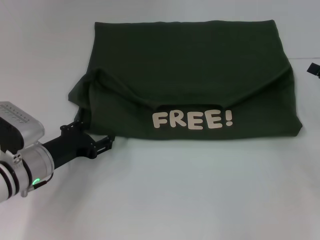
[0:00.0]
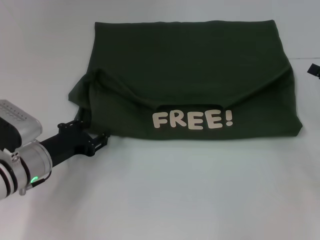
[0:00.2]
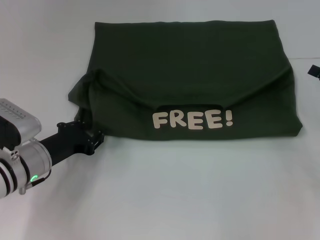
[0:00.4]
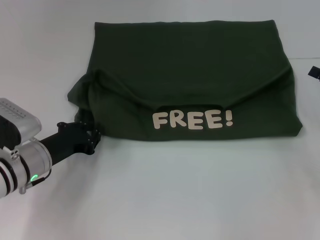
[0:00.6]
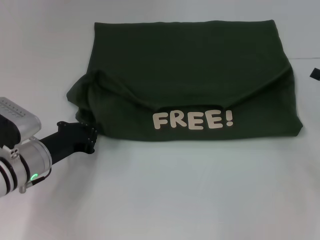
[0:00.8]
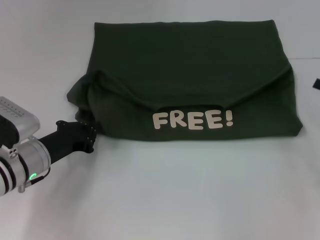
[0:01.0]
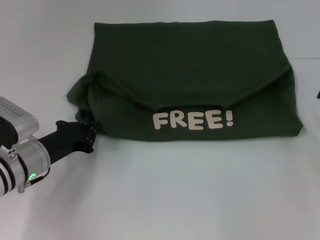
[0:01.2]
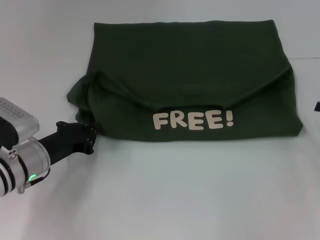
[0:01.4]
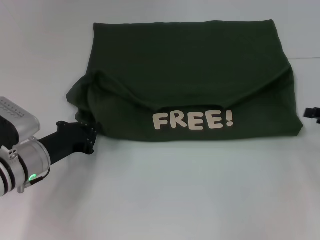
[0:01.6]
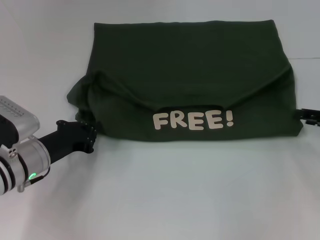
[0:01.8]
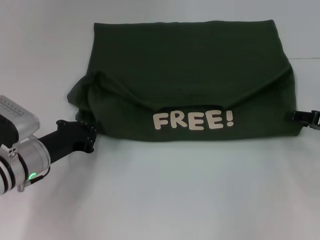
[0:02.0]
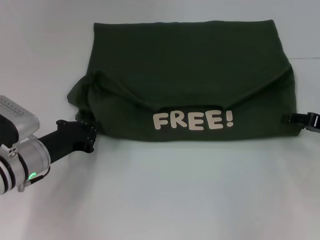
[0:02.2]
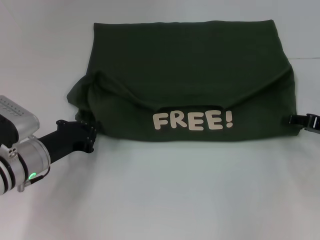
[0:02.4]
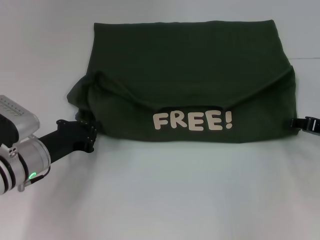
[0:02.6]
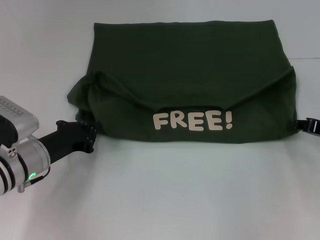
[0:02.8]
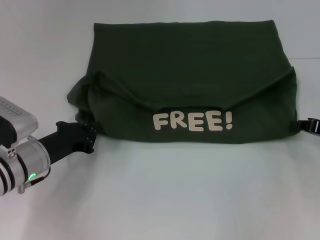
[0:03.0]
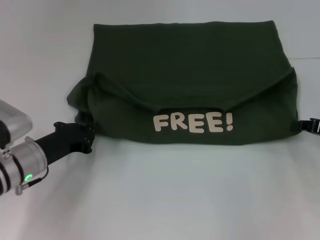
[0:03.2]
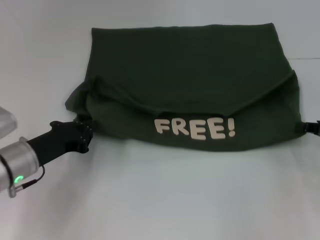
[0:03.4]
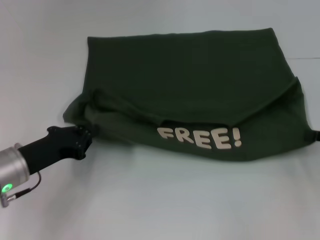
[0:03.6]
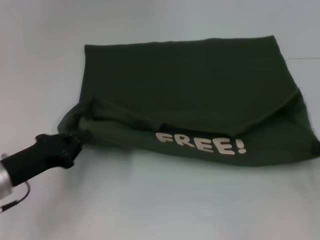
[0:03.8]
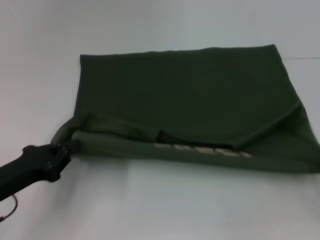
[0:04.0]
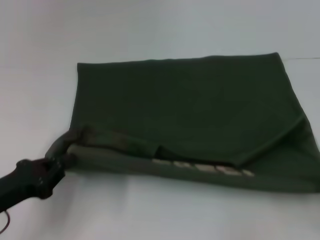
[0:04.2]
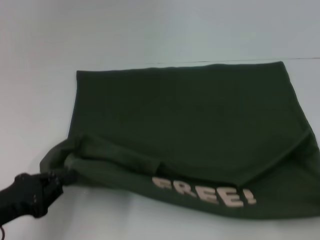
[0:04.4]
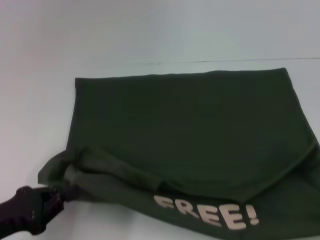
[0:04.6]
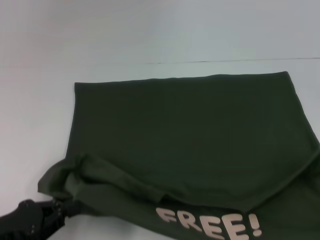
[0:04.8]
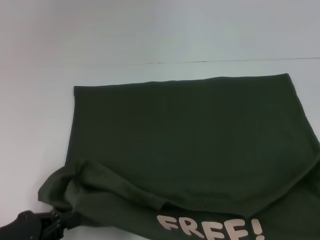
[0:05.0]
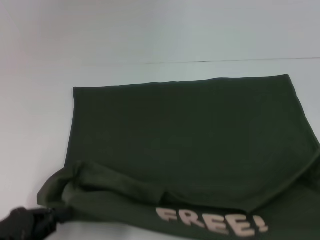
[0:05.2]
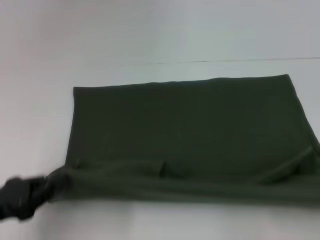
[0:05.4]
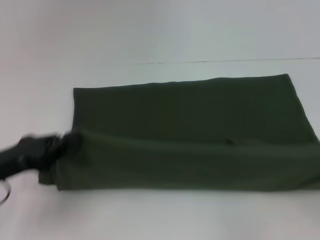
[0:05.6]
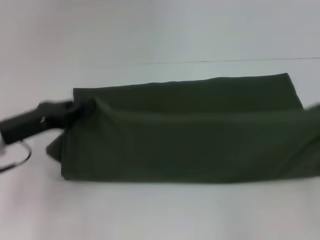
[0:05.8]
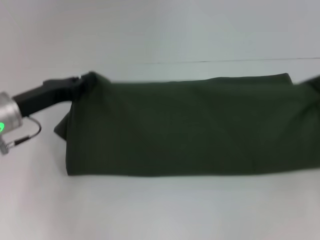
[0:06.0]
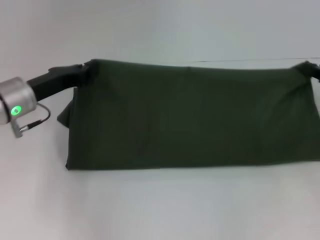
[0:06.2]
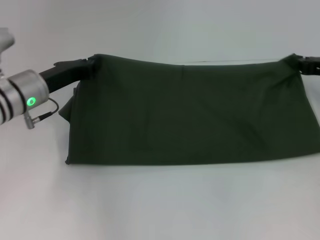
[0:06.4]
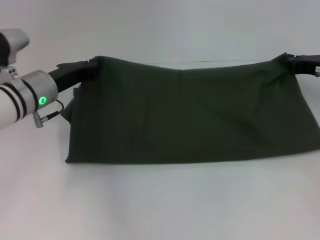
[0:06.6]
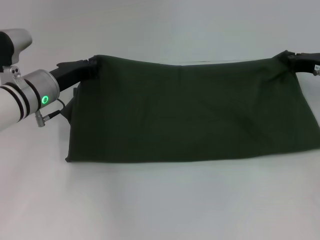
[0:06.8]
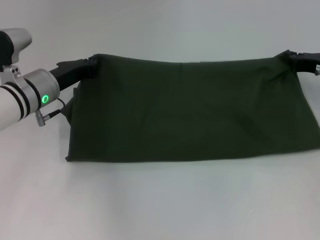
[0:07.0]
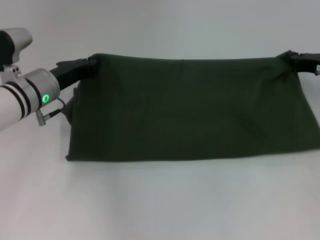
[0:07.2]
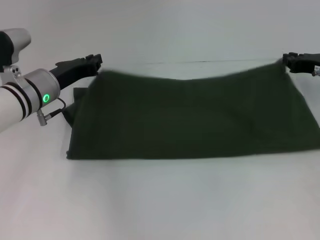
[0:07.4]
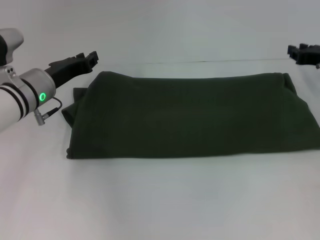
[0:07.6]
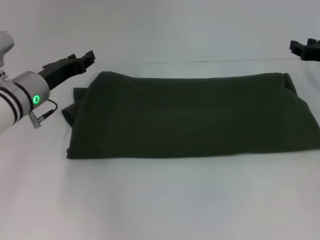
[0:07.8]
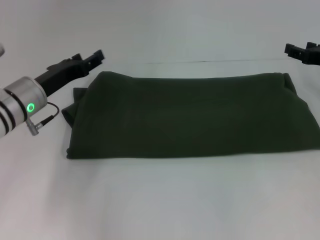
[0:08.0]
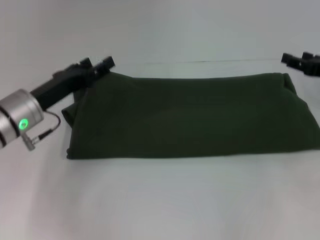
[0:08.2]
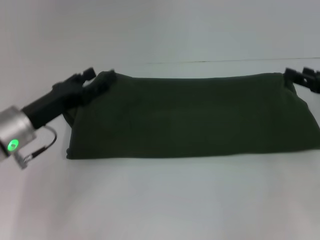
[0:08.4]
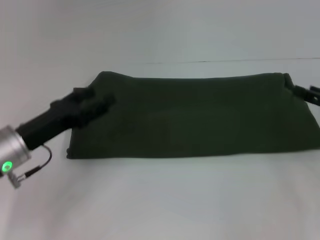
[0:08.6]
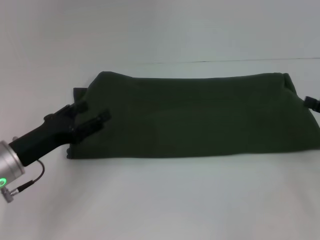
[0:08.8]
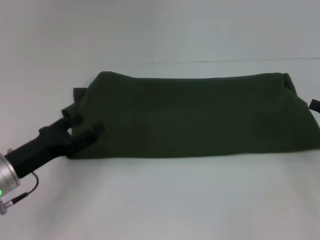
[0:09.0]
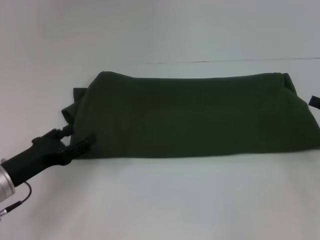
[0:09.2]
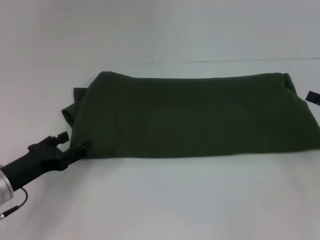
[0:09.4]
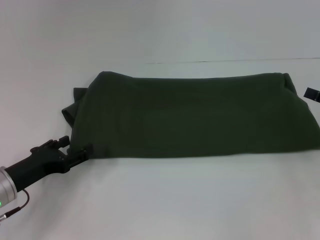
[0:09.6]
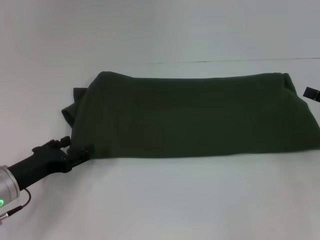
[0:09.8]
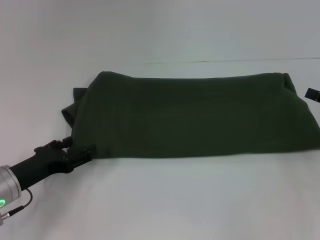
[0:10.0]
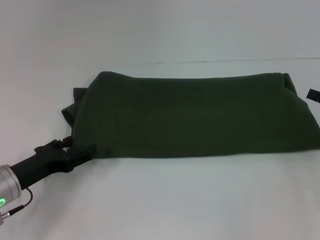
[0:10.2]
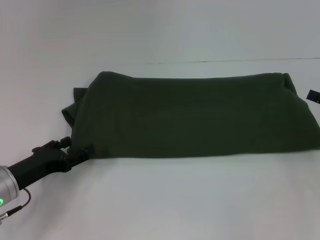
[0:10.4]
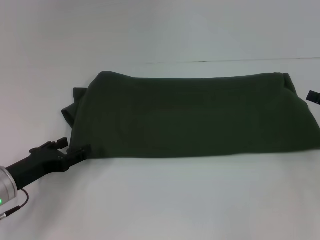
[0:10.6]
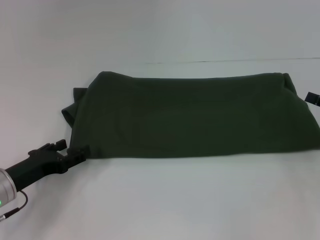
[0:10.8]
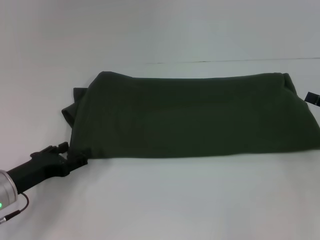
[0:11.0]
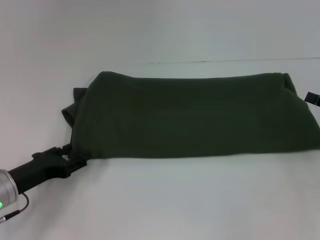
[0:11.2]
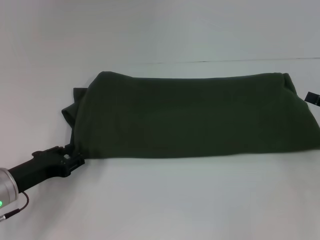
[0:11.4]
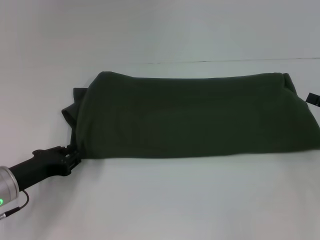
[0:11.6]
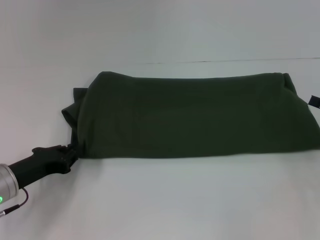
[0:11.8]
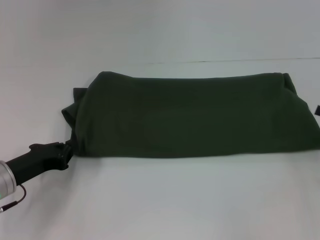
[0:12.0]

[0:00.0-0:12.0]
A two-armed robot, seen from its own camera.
Step, 0:00.0 to 0:04.8: Pull the clothes with your left hand.
Step, 0:00.0 to 0:04.8: Pull the clothes with your right hand.
Step, 0:05.0 to 0:07.4: Fold the clothes with your right hand.
0:00.0 to 0:01.6: The left gripper closes its fingers.
0:01.6 to 0:03.0: There are only small adjustments of the grippers.
0:03.0 to 0:04.4: The left gripper travels backward and to the left by approximately 15 cm; the right gripper goes some 15 cm backward.
0:04.4 to 0:06.0: Both grippers move forward, some 15 cm.
0:06.0 to 0:07.6: The right gripper goes about 10 cm forward and to the left. The left gripper shifts some 5 cm forward.
0:07.6 to 0:09.0: The left gripper moves backward, some 15 cm, and opens its fingers; the right gripper moves backward and to the right, about 15 cm, and opens.
0:09.0 to 0:10.4: The grippers move only a little.
0:10.4 to 0:12.0: The left gripper closes up.

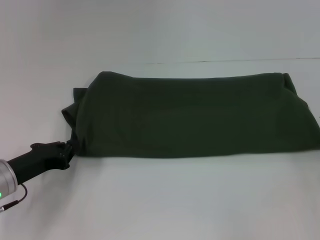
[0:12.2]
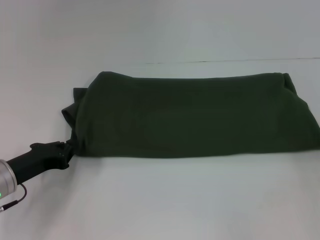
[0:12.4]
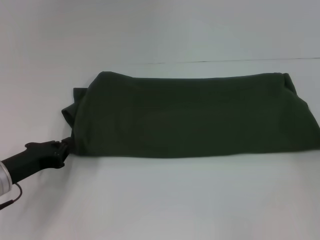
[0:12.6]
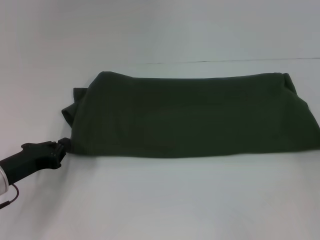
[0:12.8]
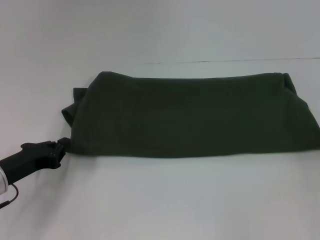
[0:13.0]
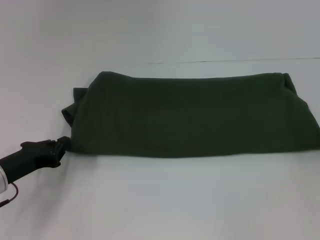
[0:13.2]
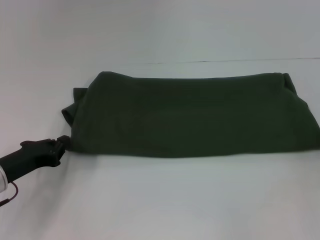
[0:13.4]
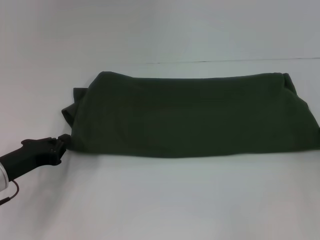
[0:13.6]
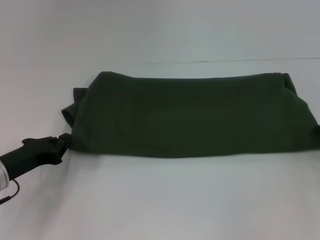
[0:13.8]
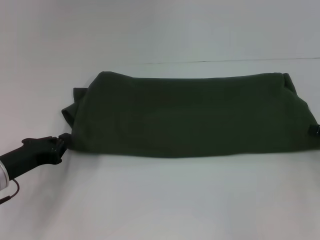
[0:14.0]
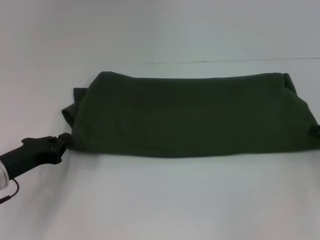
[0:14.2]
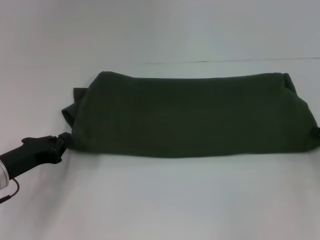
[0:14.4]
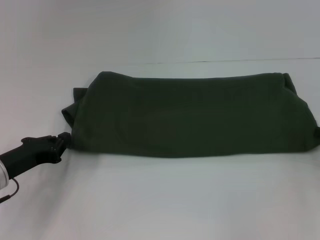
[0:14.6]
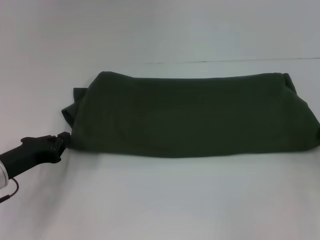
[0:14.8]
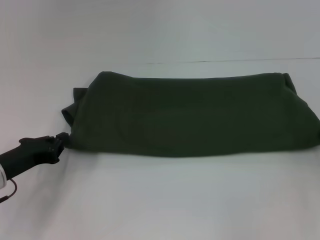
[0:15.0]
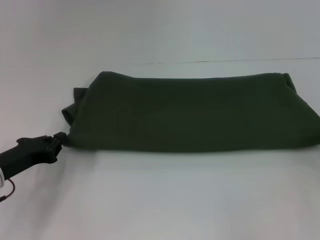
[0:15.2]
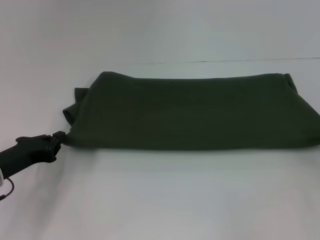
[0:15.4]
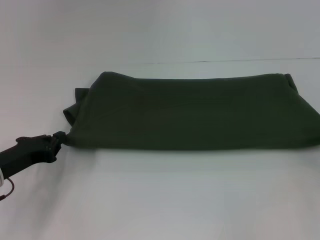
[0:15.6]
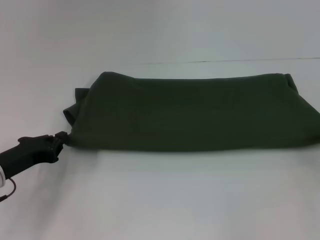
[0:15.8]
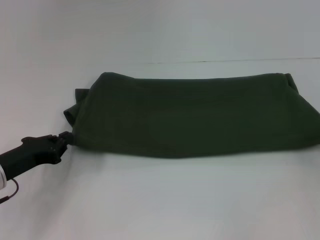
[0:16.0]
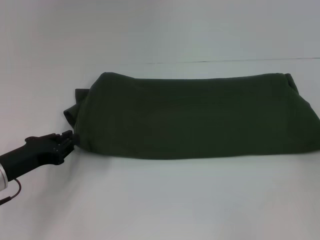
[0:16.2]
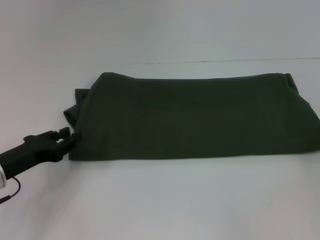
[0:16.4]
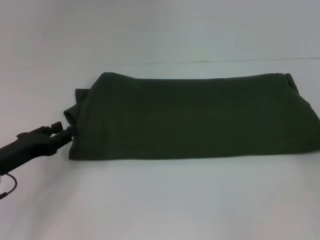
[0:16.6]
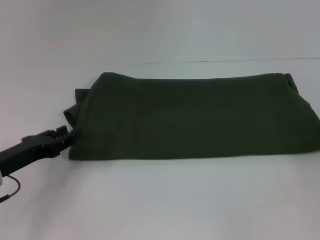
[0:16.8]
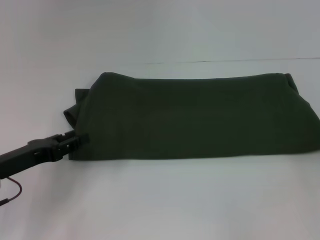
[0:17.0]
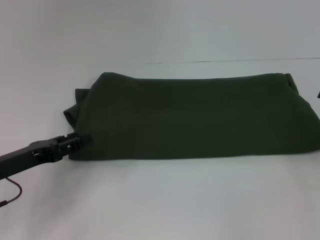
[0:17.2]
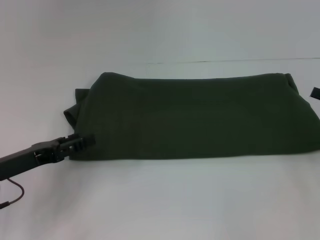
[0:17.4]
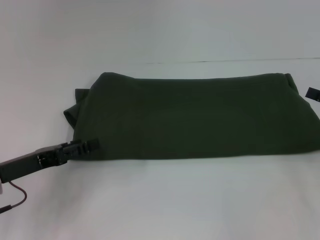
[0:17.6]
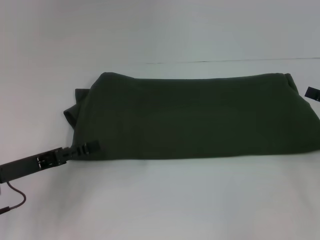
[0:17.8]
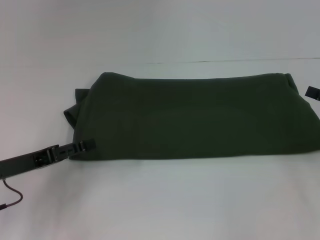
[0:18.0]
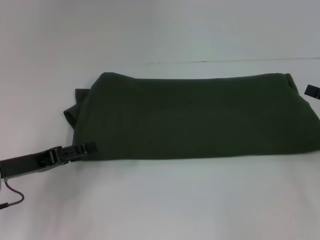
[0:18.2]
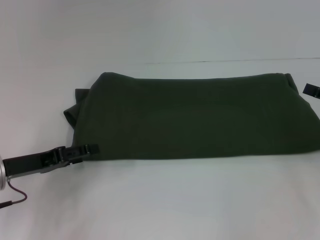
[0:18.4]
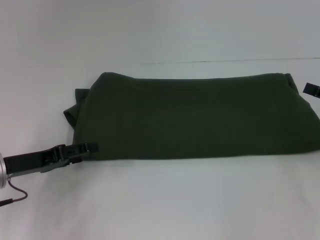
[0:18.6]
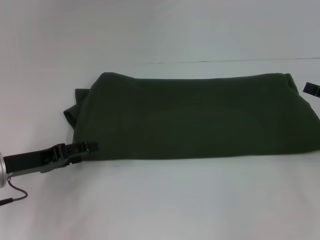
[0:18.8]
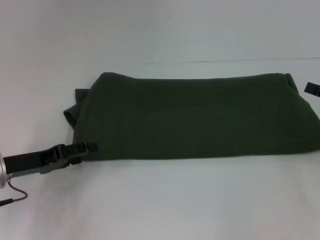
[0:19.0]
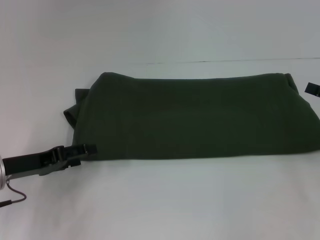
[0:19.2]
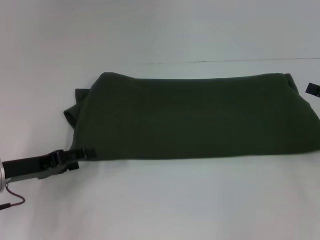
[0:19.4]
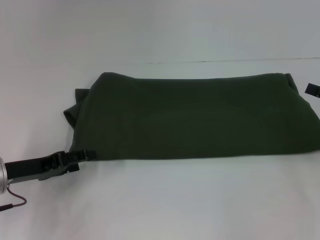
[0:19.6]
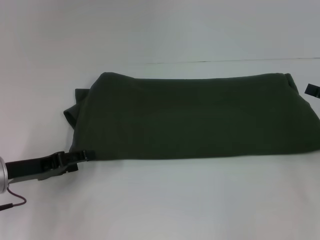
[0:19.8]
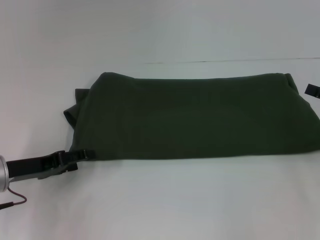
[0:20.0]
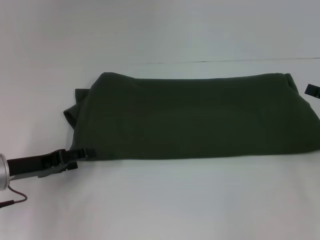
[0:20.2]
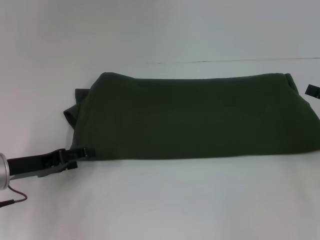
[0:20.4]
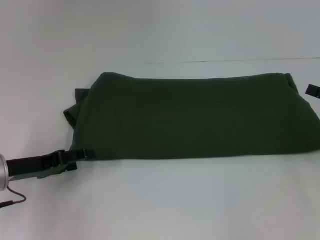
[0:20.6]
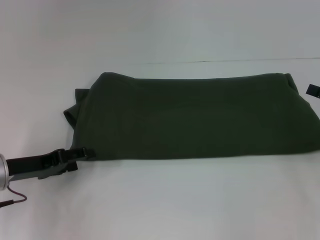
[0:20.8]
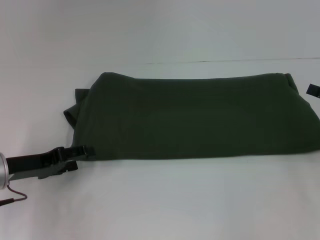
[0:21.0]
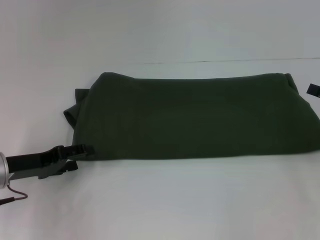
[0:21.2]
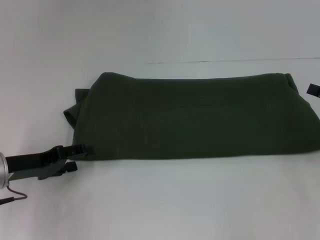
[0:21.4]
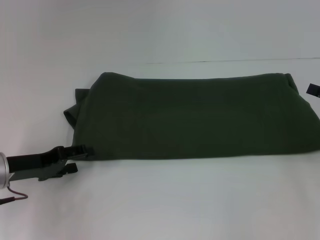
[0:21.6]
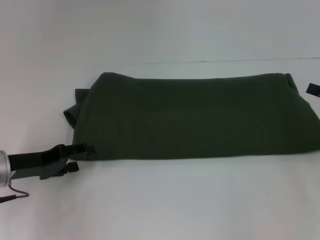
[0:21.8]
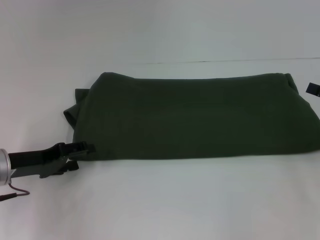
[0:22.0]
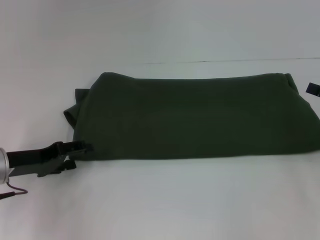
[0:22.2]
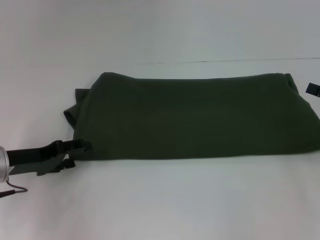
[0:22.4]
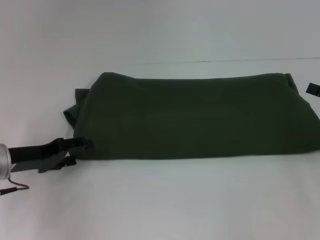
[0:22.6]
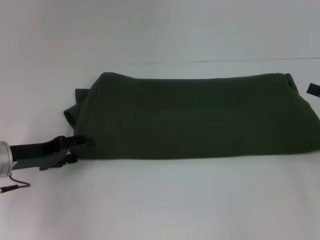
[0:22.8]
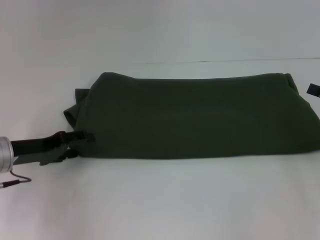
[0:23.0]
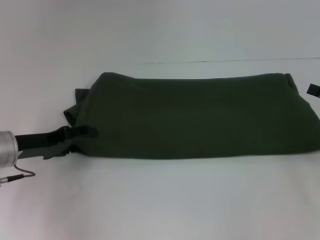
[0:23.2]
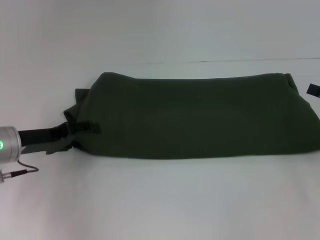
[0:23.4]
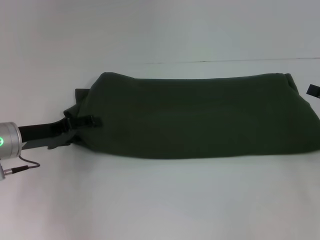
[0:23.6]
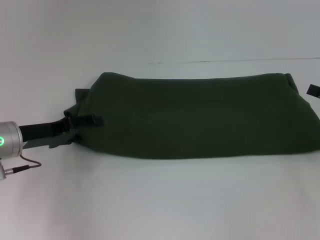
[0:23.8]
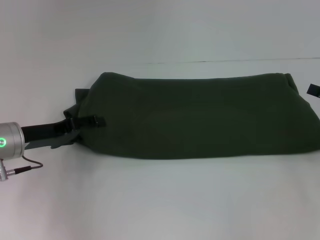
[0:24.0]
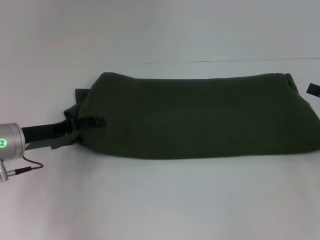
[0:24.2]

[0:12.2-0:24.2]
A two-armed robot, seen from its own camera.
0:12.2 to 0:13.8: There are only small adjustments of the grippers.
0:13.8 to 0:15.2: The right gripper closes its fingers.
0:15.2 to 0:16.6: The right gripper opens, while the left gripper opens its fingers.
0:16.6 to 0:18.2: The left gripper opens its fingers.
0:18.2 to 0:21.2: The grippers stay close to where they were, moving slightly.
0:21.2 to 0:22.6: Both grippers stay about where they are.
0:22.6 to 0:24.2: There are only small adjustments of the grippers.
